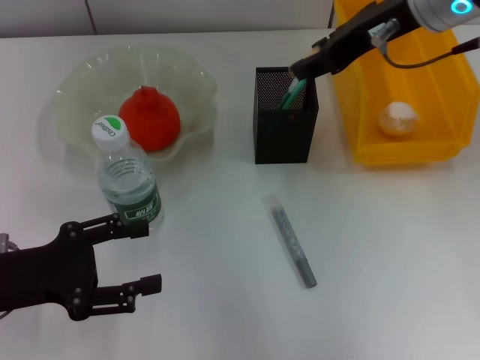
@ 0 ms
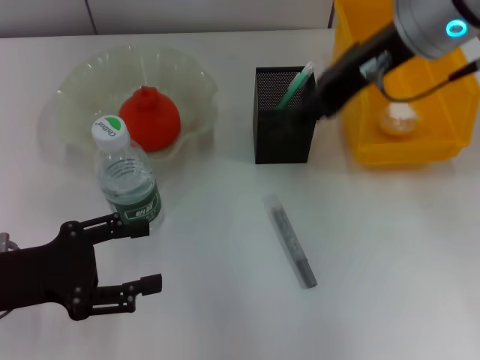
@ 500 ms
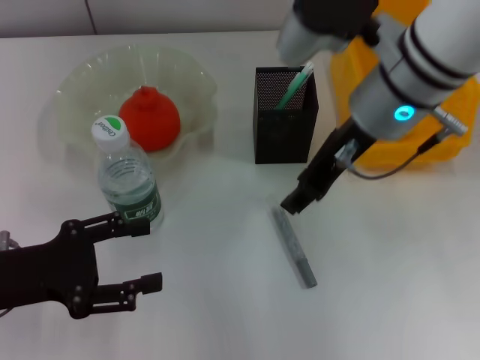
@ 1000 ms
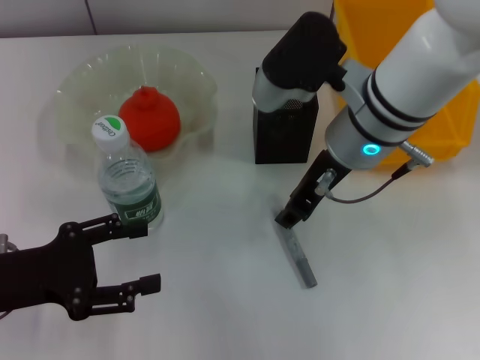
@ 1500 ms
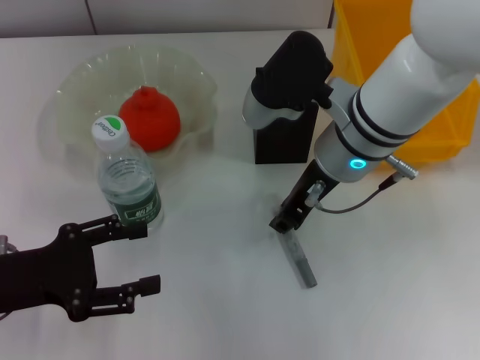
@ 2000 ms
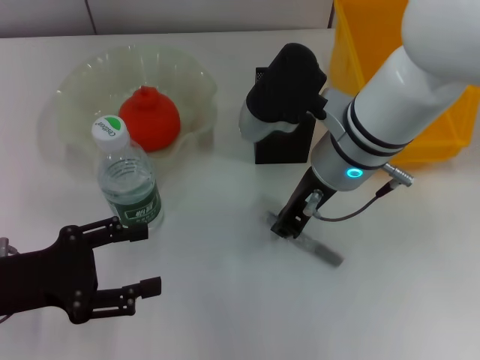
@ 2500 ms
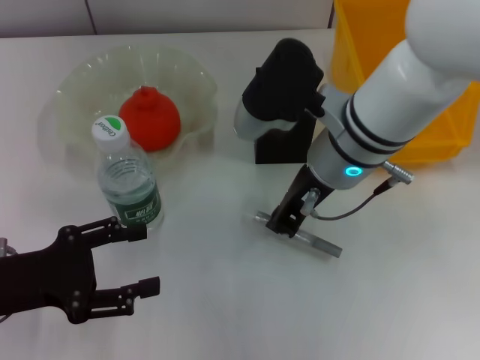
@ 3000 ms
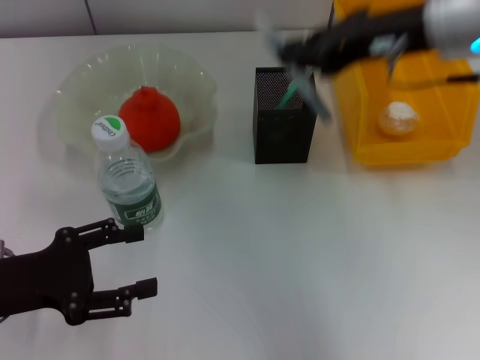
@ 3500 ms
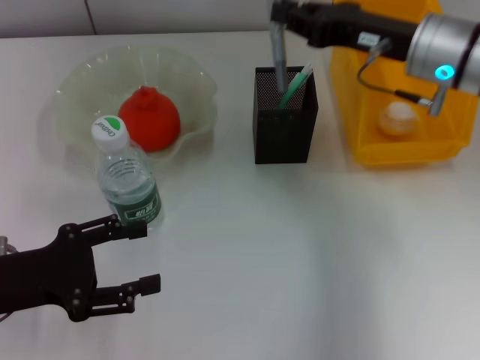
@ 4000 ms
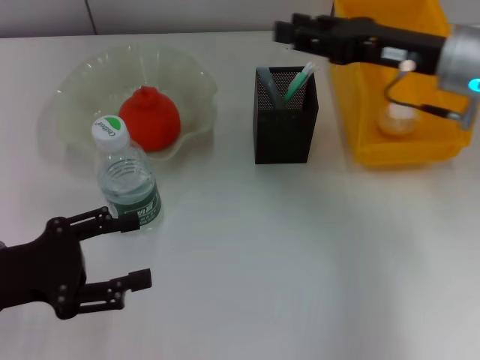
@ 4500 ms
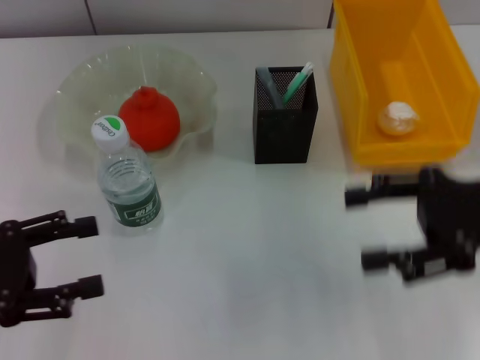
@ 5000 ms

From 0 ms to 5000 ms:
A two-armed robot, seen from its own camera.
Step, from 500 ms to 2500 ms: Grab the gray glue with the right hand.
Step, from 3000 ms to 4000 ms: Place the gray glue into the pen holder with the right hand.
From 0 ms to 2500 ms: The right gripper moves downward and to the left, approximately 15 cm.
From 2500 ms to 5000 ms: The right gripper heads to the right, covering roughly 20 cm, and opens up.
